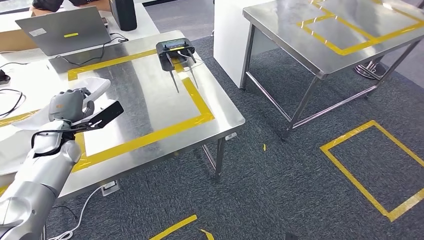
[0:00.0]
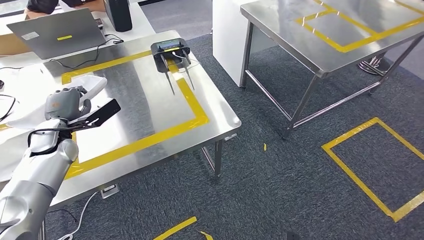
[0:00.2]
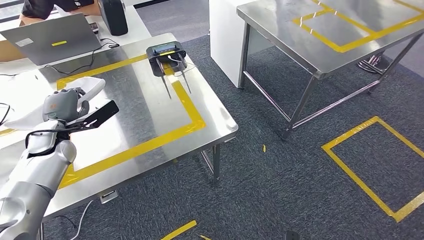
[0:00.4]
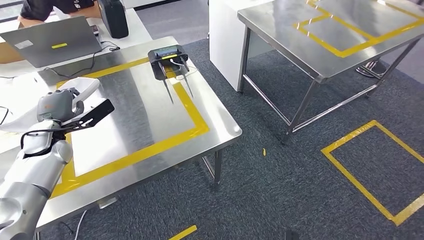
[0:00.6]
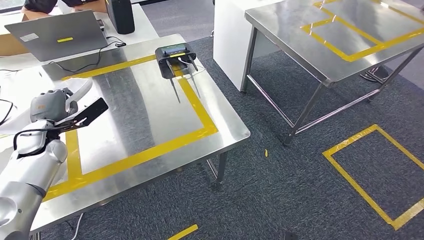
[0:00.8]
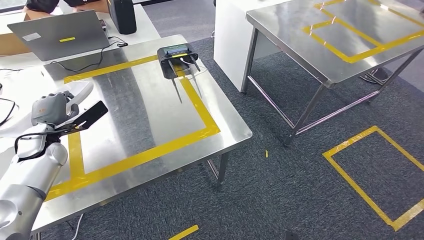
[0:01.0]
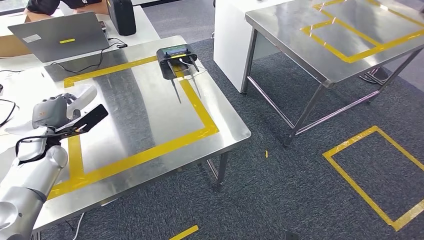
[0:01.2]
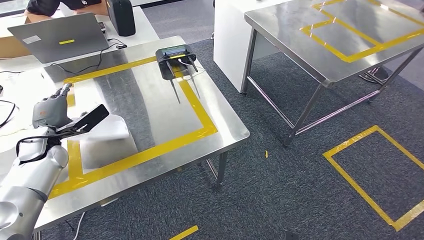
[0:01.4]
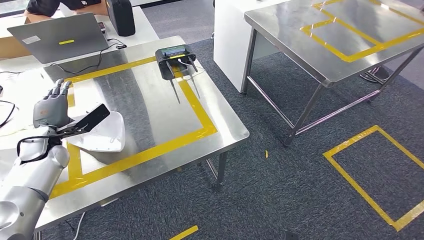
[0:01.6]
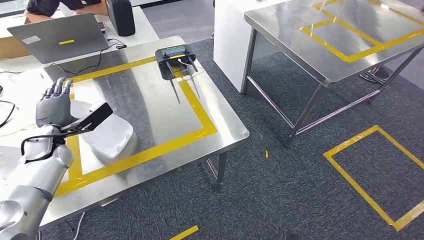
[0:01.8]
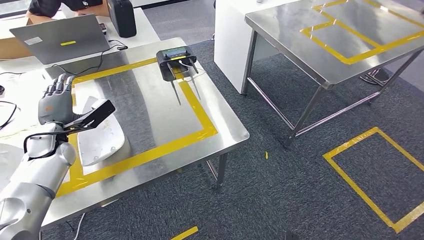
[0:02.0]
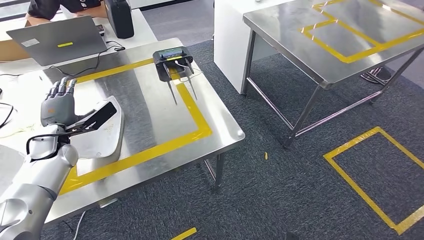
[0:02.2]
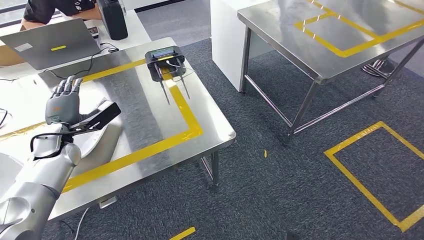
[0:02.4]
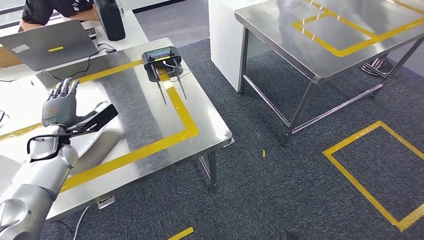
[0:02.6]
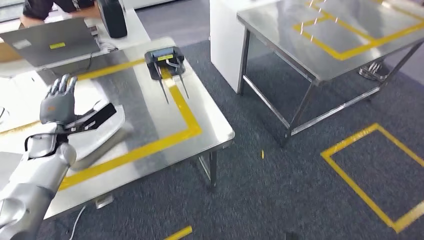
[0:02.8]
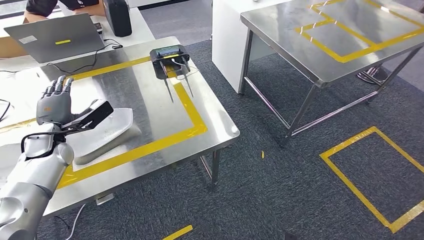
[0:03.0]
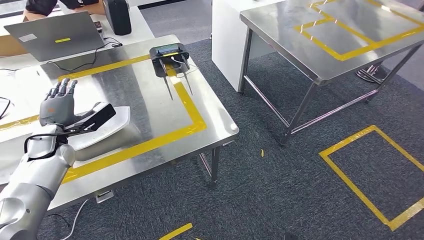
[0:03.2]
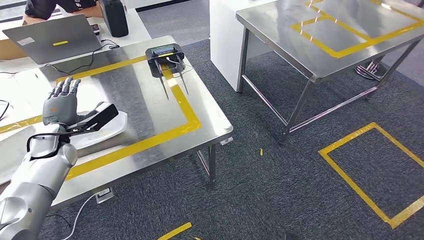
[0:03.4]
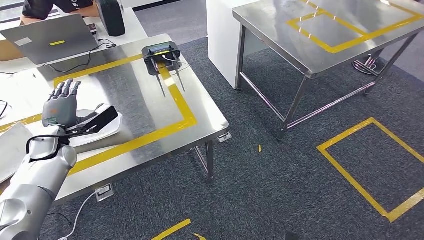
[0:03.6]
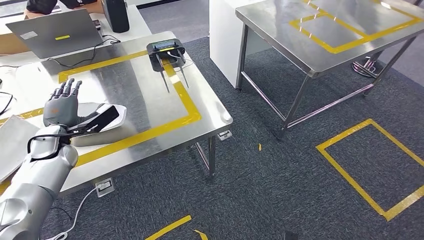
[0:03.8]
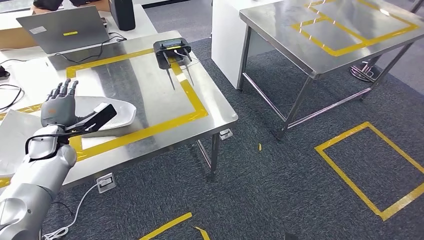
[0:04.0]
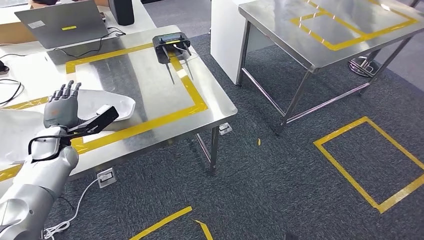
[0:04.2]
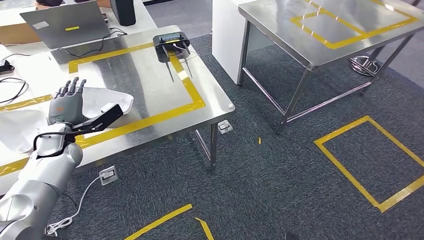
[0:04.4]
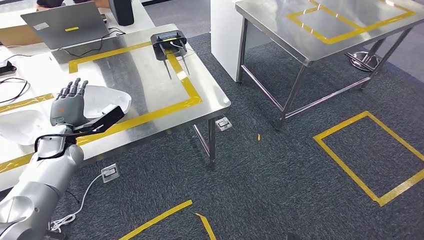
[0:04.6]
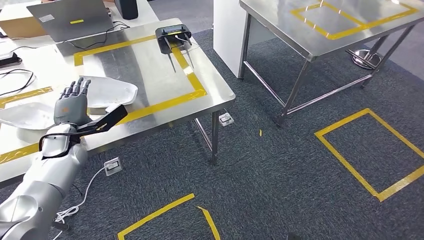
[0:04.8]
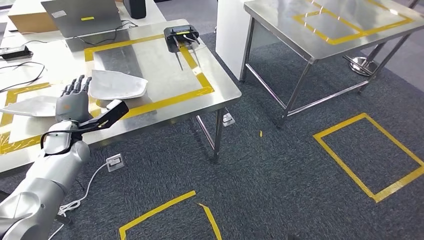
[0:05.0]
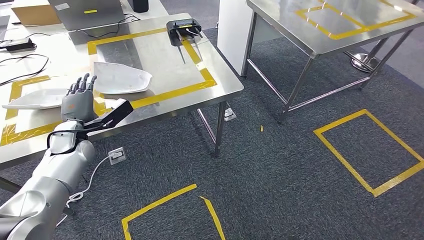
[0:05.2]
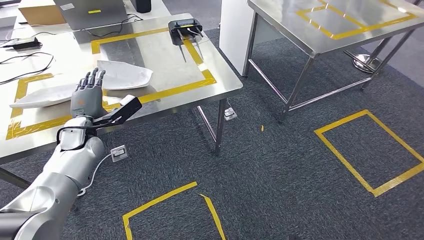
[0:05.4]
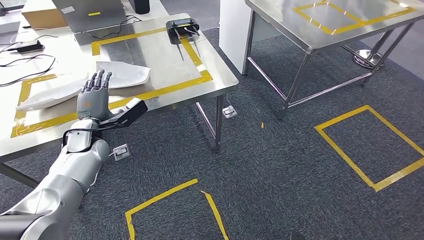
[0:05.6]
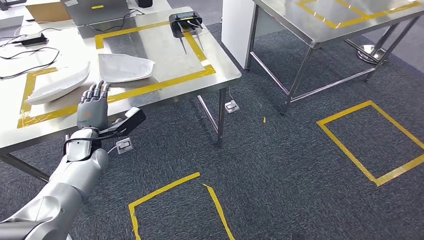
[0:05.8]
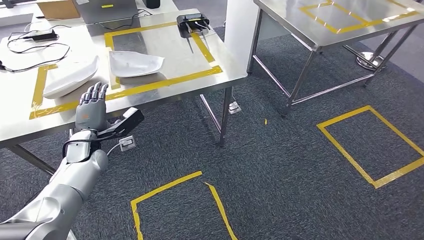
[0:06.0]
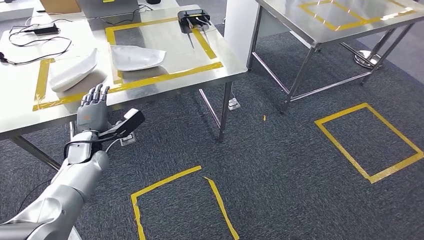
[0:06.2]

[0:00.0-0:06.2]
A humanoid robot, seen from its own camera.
Step, 0:00.0 to 0:02.2: Insert the small component into the corresponding slot on the workbench.
Step, 0:02.4 to 0:06.2: Return to the initial position at the workbench.
